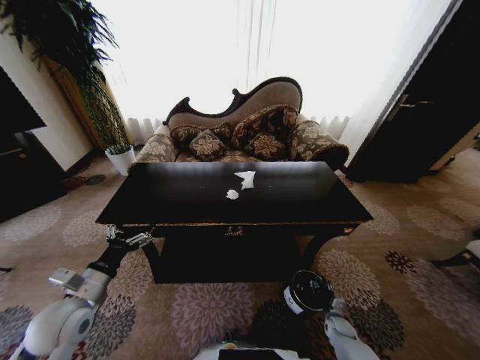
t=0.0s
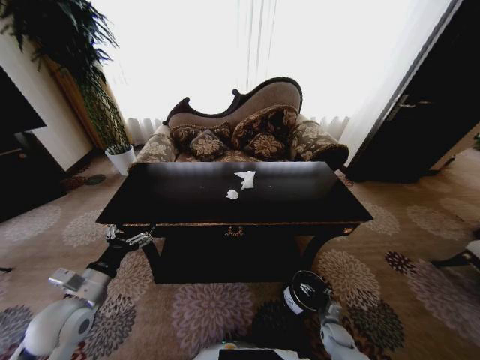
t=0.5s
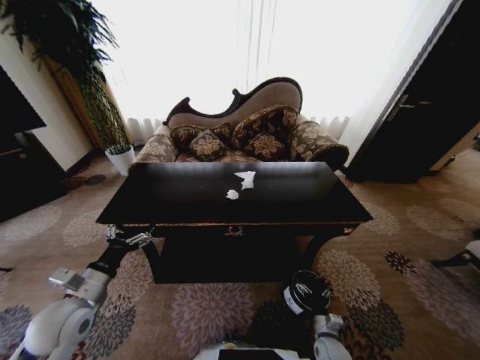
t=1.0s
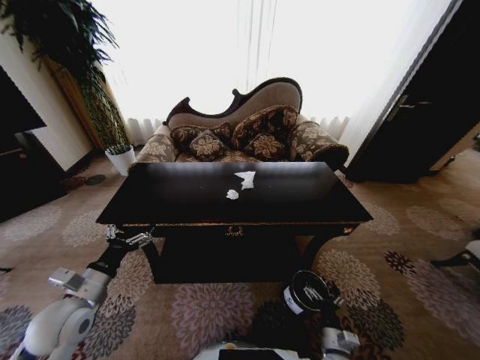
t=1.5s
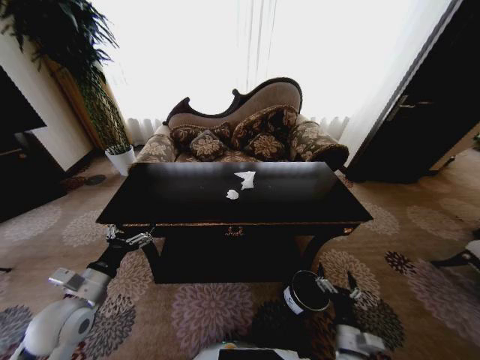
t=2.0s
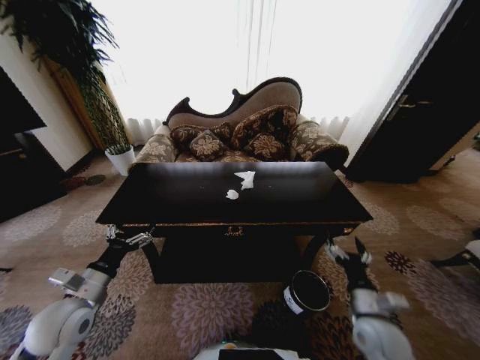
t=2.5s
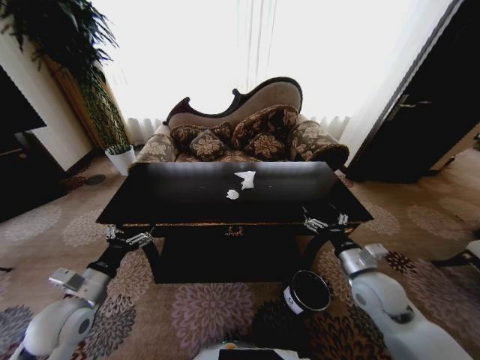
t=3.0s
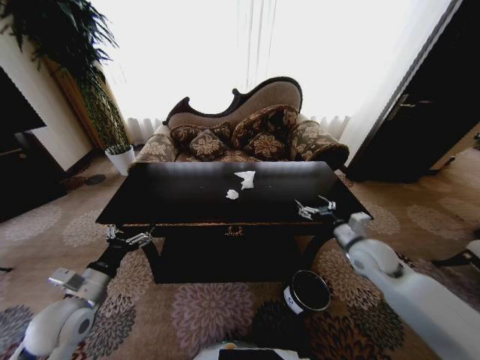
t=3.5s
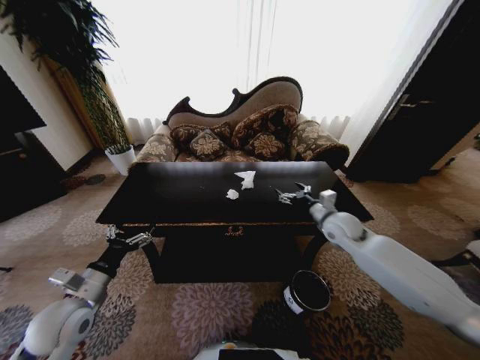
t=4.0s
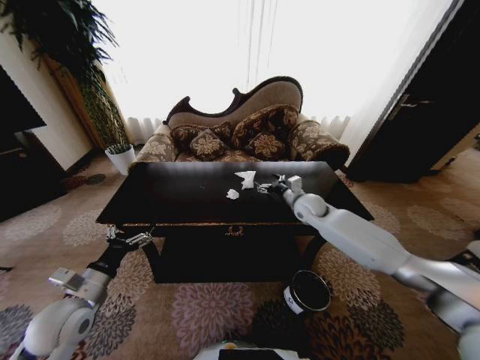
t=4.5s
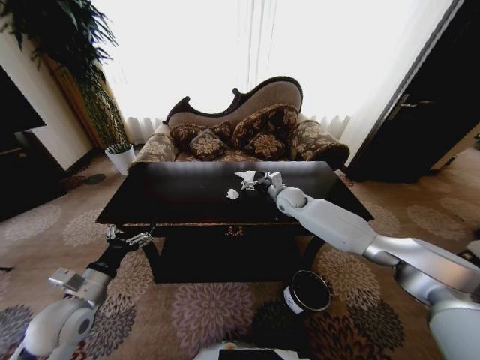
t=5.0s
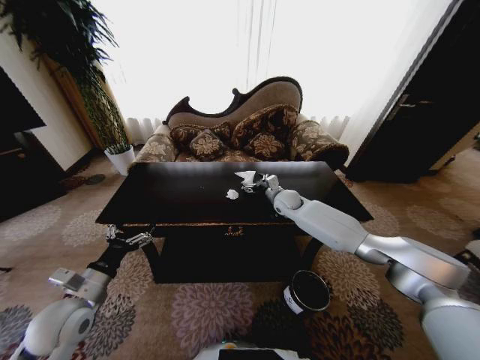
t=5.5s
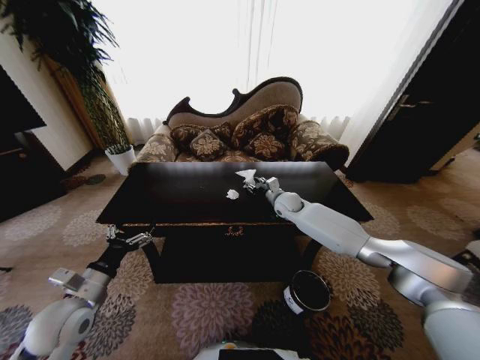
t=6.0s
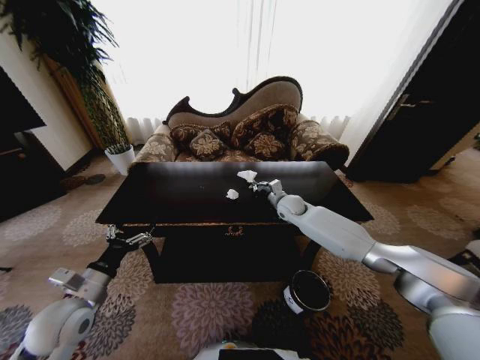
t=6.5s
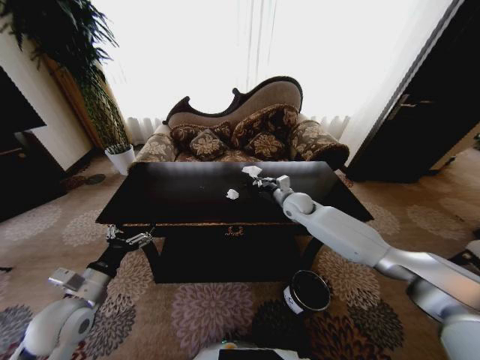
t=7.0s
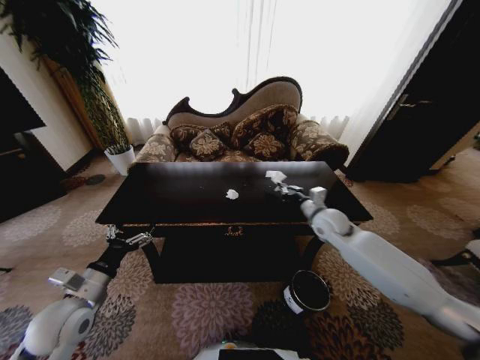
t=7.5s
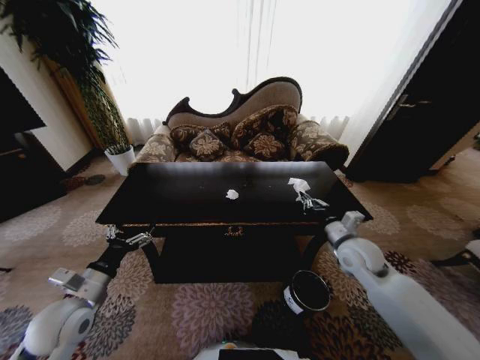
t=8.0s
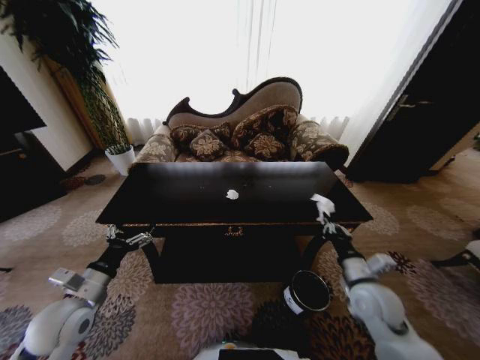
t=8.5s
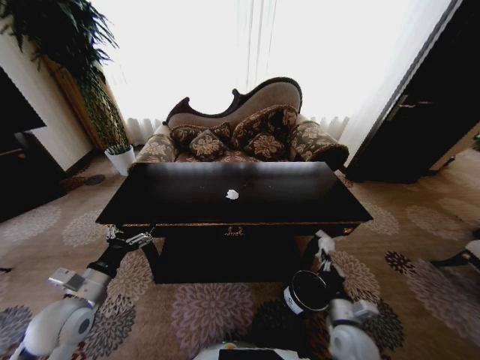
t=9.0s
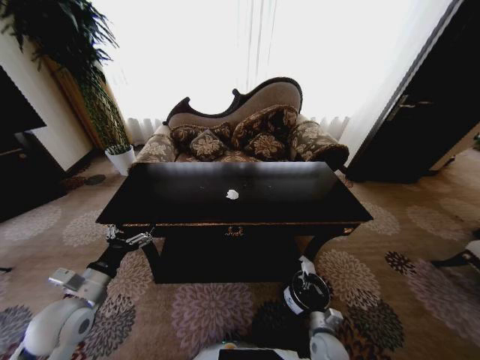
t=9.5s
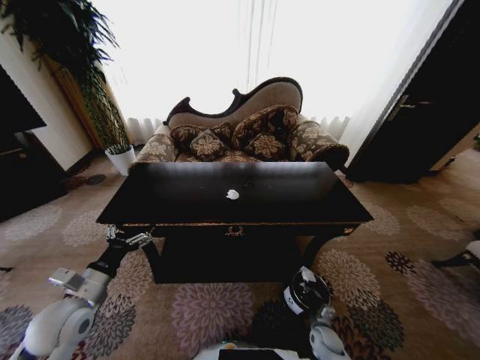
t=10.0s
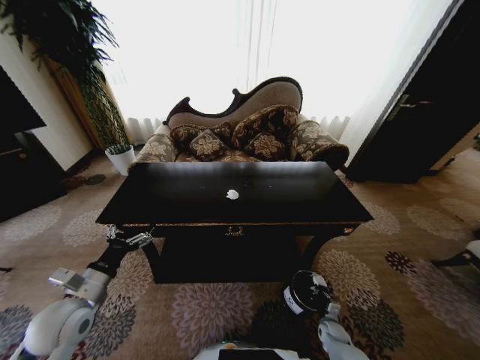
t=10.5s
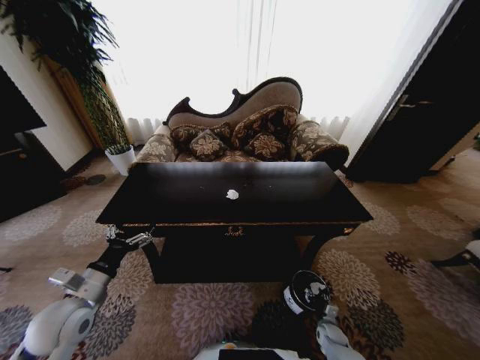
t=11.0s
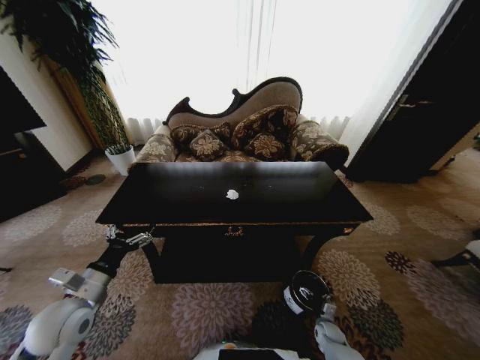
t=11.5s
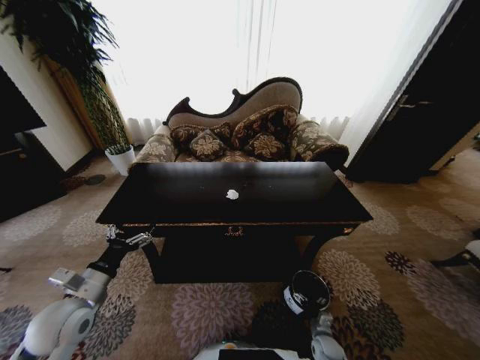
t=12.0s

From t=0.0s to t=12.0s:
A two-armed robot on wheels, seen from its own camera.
Task of the whole recording: Move to the front of the table and place the trash on the table into the trash bin.
From t=0.0s to t=2.0s: The right gripper goes roughly 25 cm upward, backward and to the left, and opens.
From t=2.0s to t=4.0s: The right gripper is displaced forward and upward by about 35 cm.
From t=4.0s to t=6.0s: The right gripper heads forward and to the left, covering some 20 cm, and closes up.
From t=6.0s to t=8.0s: The right gripper is displaced backward and to the right by roughly 25 cm, and closes up.
From t=8.0s to t=10.0s: The right gripper goes about 35 cm downward.
From t=10.0s to t=12.0s: The right gripper opens.

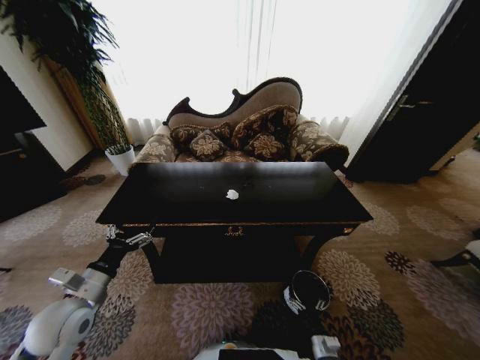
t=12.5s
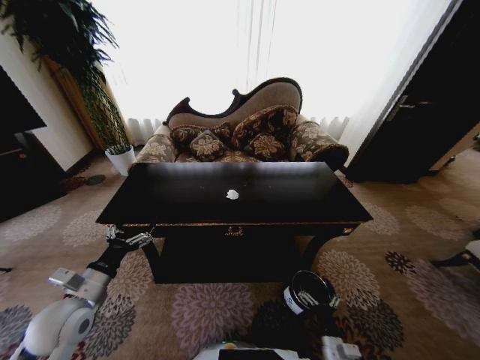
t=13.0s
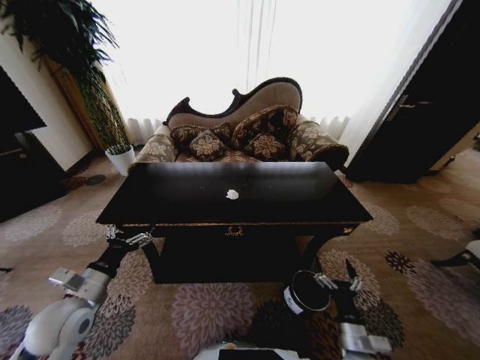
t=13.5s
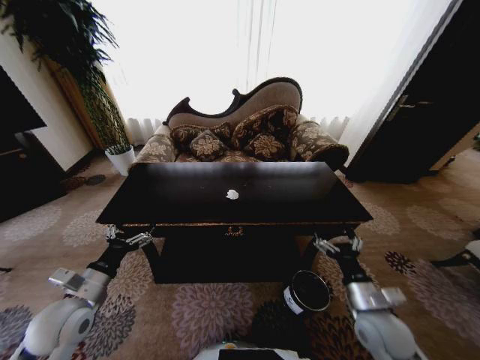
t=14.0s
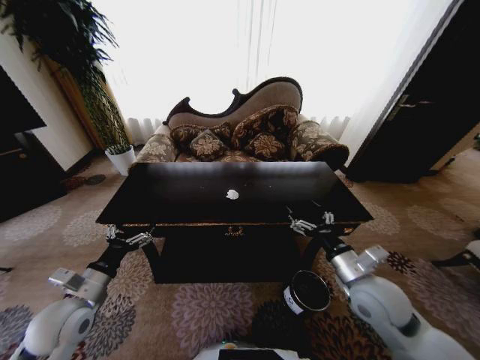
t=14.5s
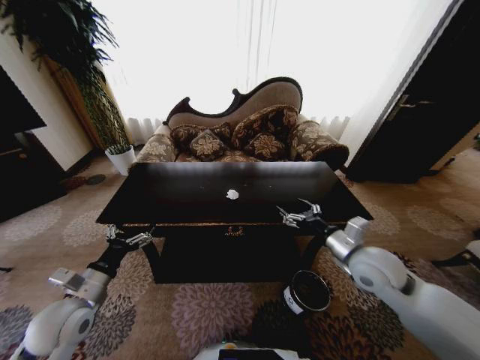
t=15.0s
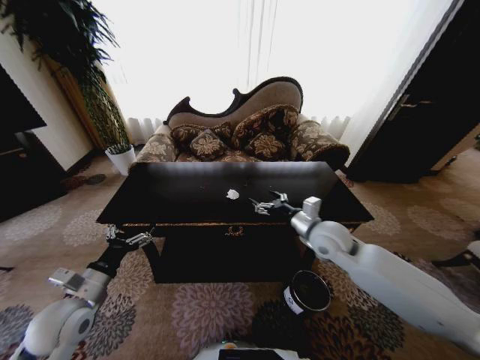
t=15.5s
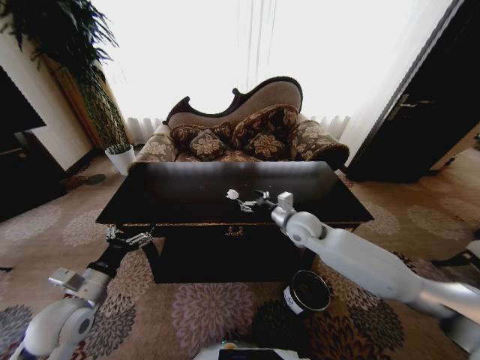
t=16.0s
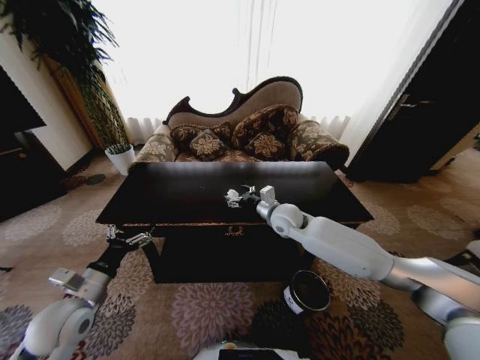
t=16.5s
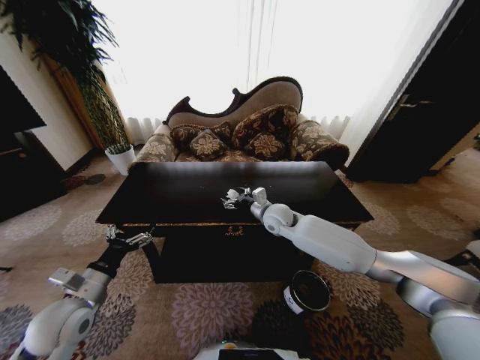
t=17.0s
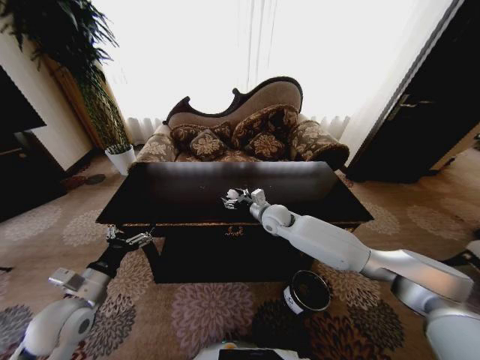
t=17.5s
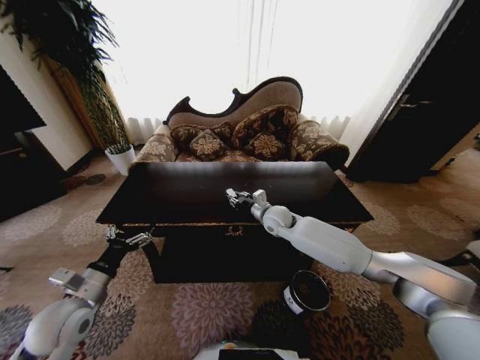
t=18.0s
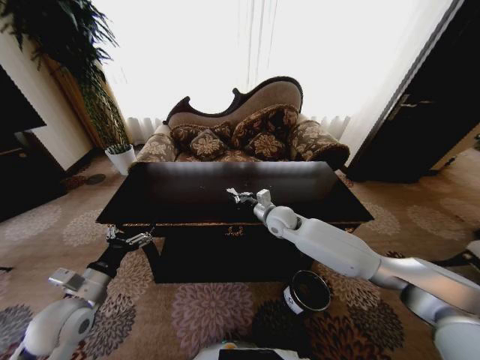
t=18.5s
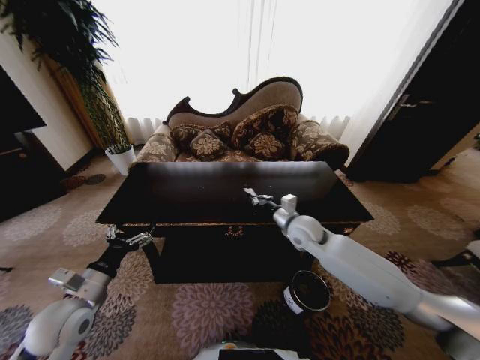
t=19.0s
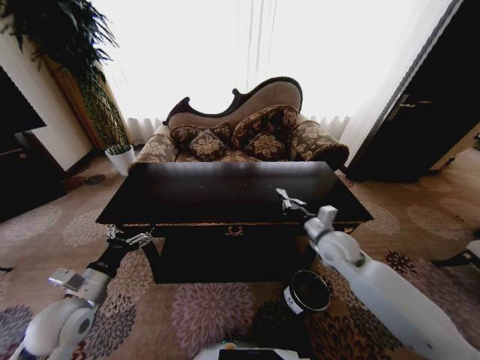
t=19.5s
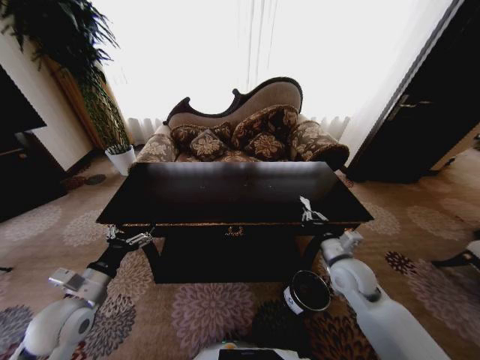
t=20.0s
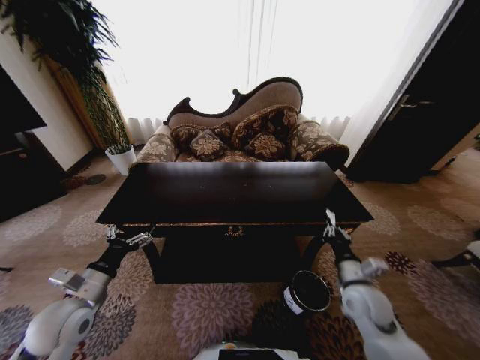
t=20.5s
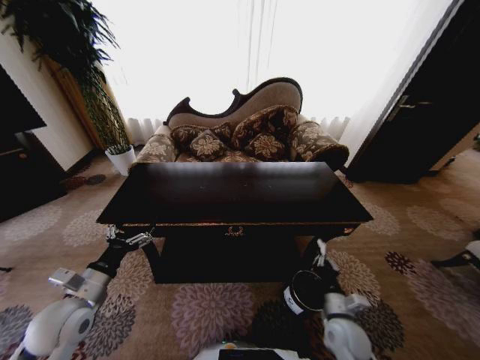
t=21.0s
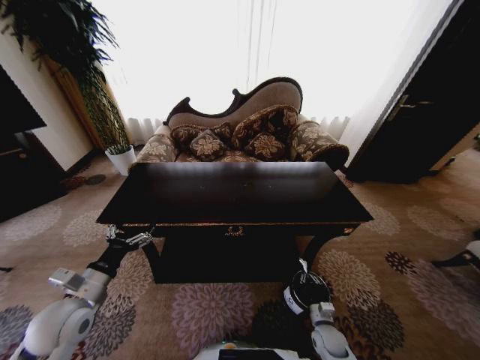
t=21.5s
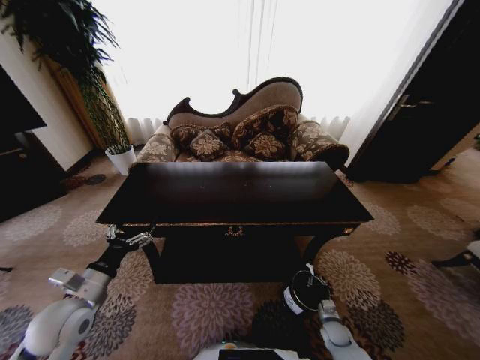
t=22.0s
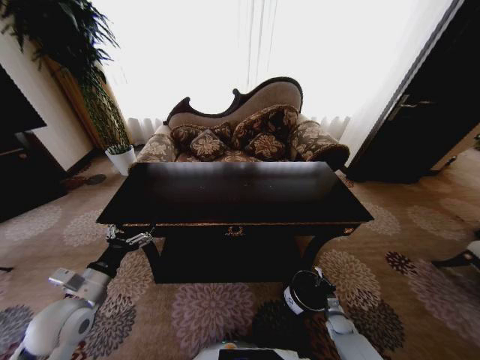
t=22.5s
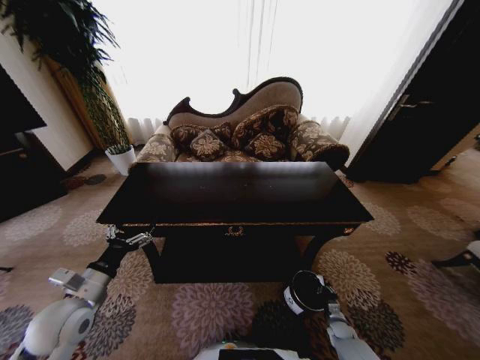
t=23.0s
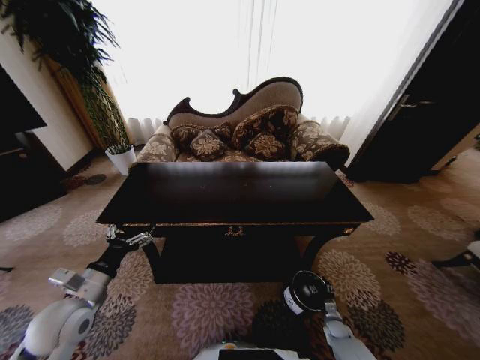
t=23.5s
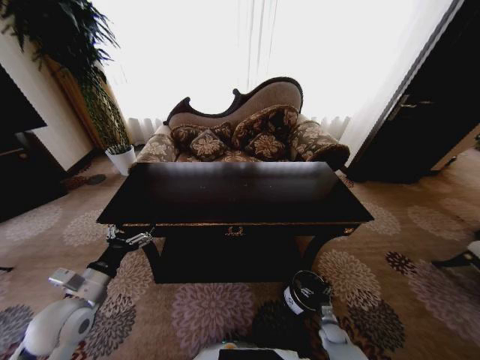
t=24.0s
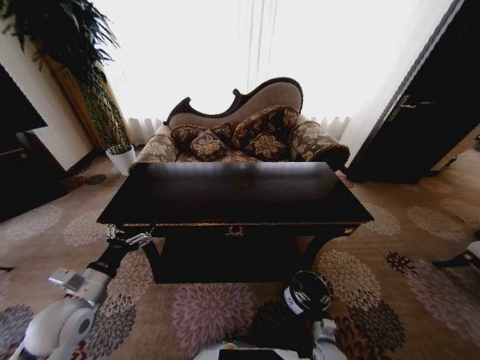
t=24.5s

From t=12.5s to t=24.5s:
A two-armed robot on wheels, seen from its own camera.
Task of the whole recording: Move to the front of the table and place the trash on the table into the trash bin.
From t=12.5s to t=14.5s: The right gripper is displaced upward by about 35 cm.
From t=14.5s to t=16.5s: The right gripper is displaced forward and to the left by roughly 25 cm.
From t=16.5s to t=18.5s: The right gripper closes.
From t=18.5s to t=20.5s: The right gripper travels backward and to the right by roughly 30 cm.
From t=20.5s to t=22.5s: The right gripper moves downward, some 30 cm.
From t=22.5s to t=24.5s: The right gripper moves to the left and backward, approximately 15 cm, and opens up.

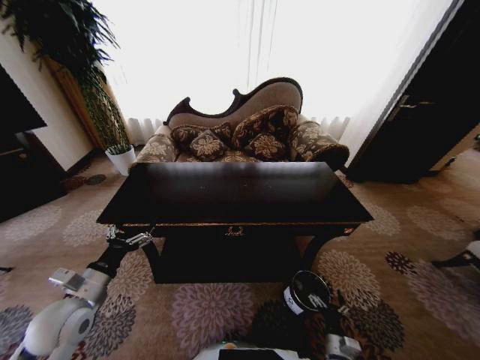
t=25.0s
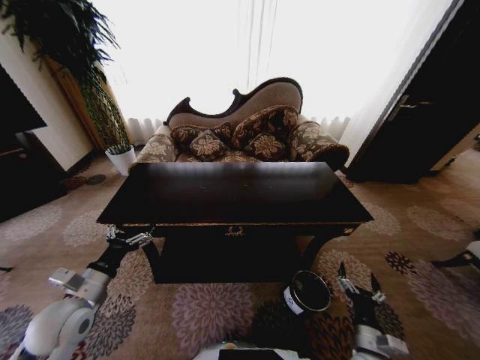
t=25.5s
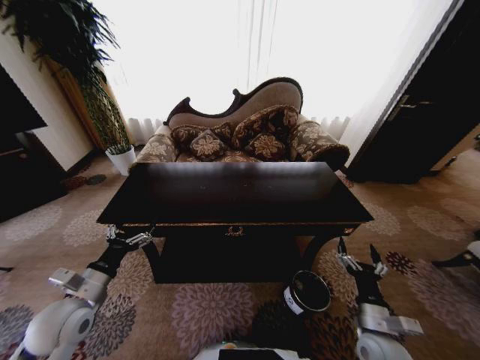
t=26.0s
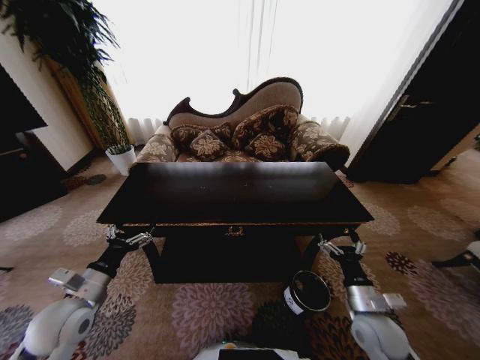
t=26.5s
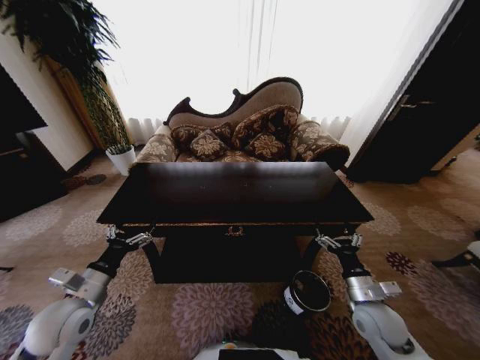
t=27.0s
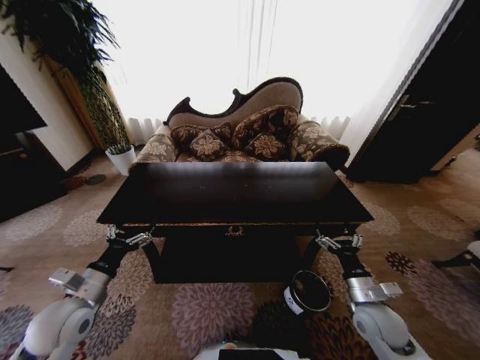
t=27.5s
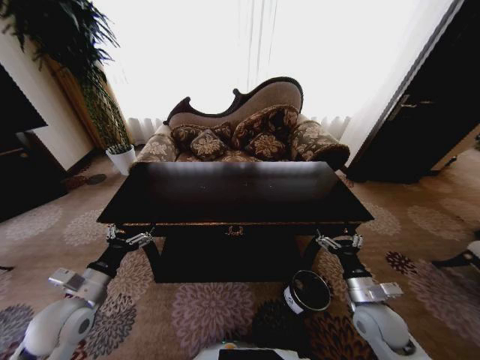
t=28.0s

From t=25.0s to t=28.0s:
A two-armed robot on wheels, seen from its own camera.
Task of the whole recording: Move to the front of the table and place the trash on the table into the trash bin.
From t=25.0s to t=26.5s: The right gripper travels upward by roughly 20 cm.
From t=26.5s to t=28.0s: There are only small adjustments of the grippers.
